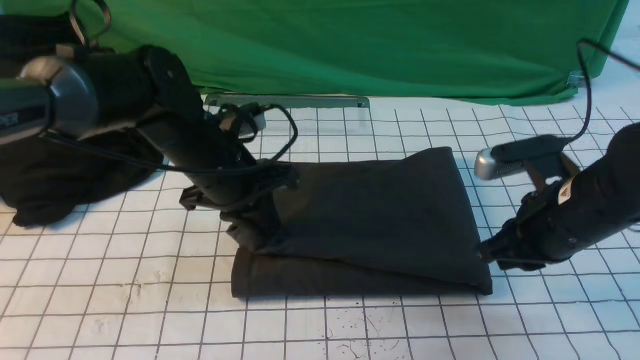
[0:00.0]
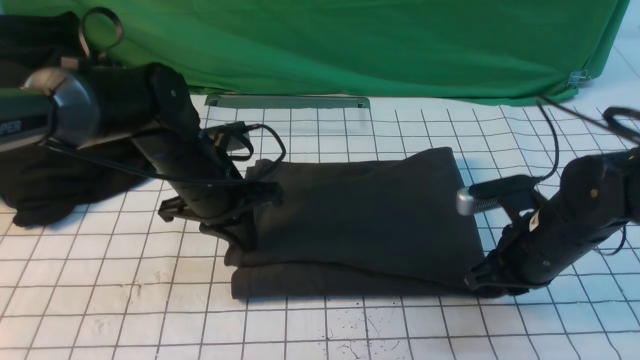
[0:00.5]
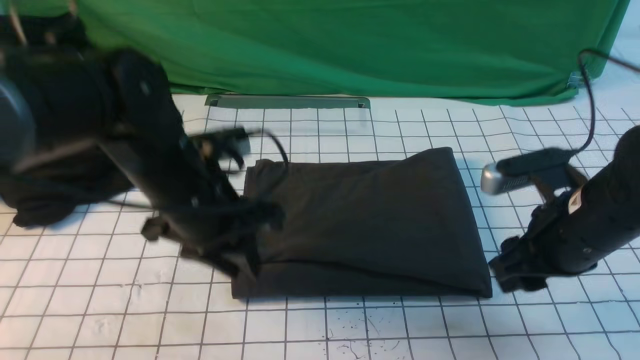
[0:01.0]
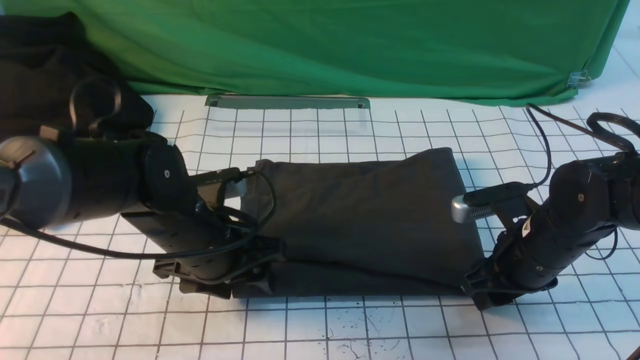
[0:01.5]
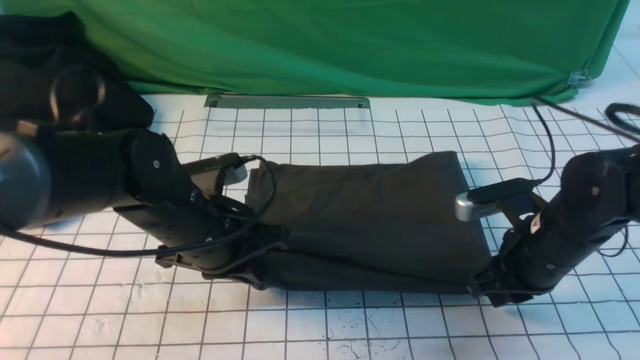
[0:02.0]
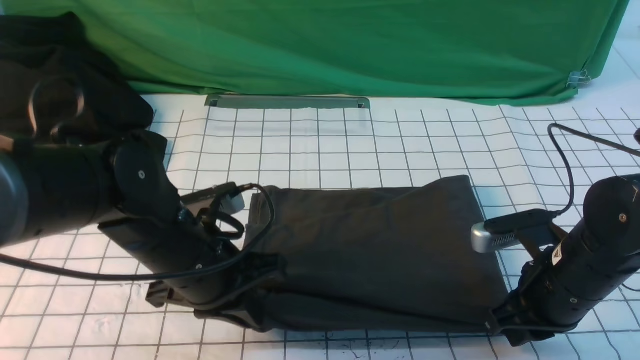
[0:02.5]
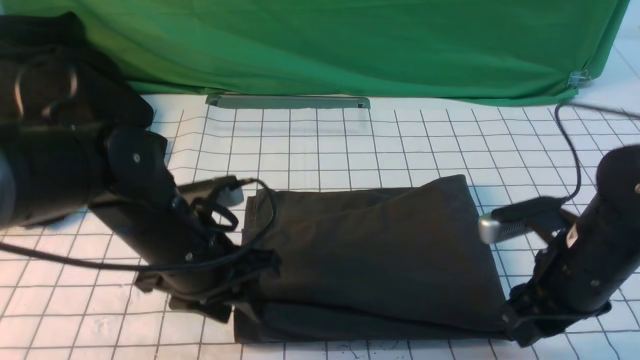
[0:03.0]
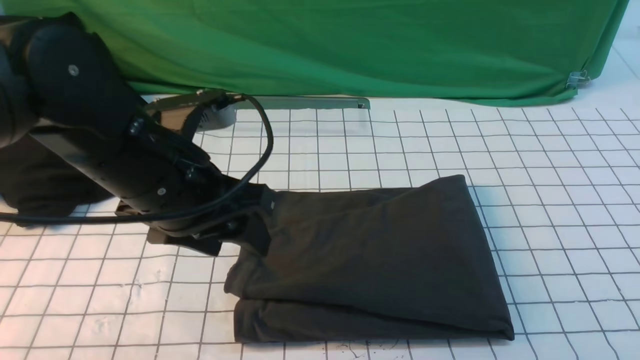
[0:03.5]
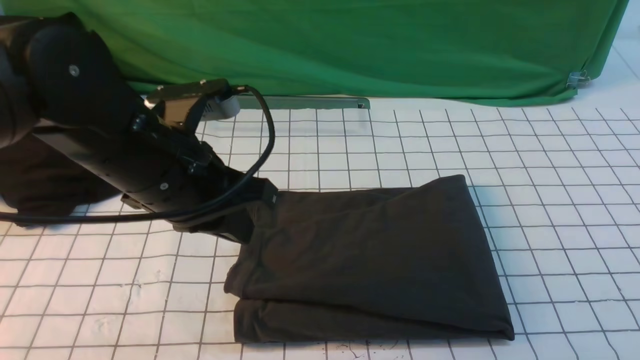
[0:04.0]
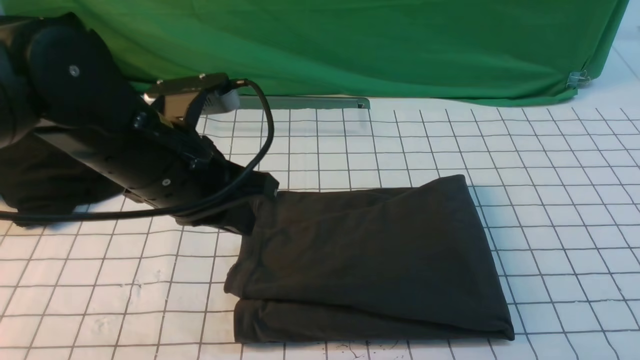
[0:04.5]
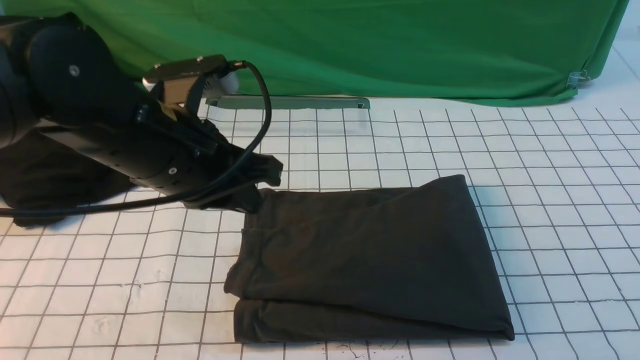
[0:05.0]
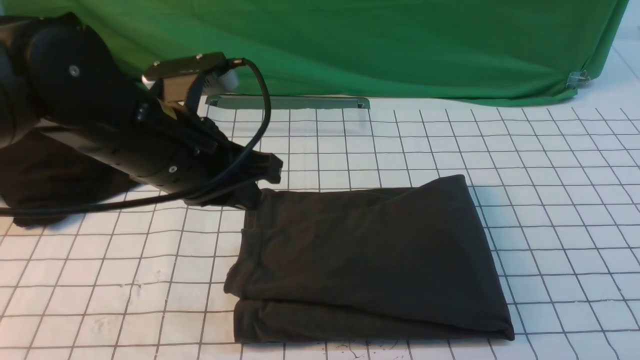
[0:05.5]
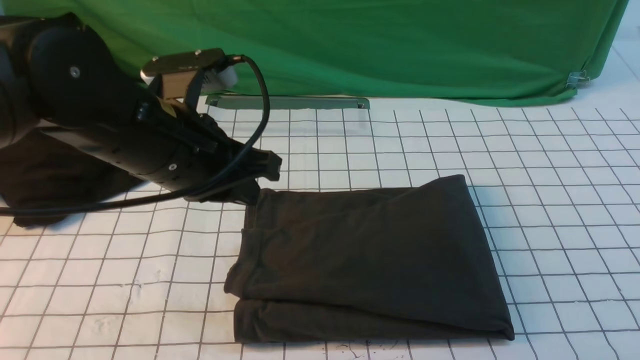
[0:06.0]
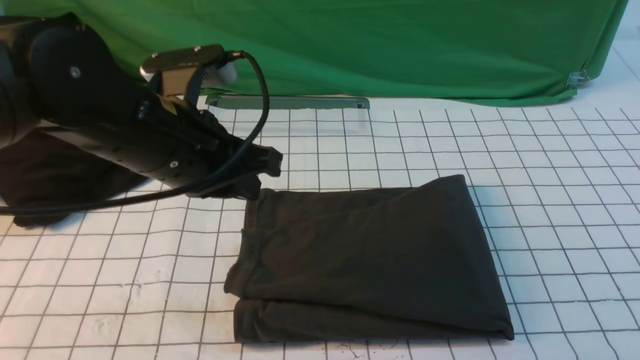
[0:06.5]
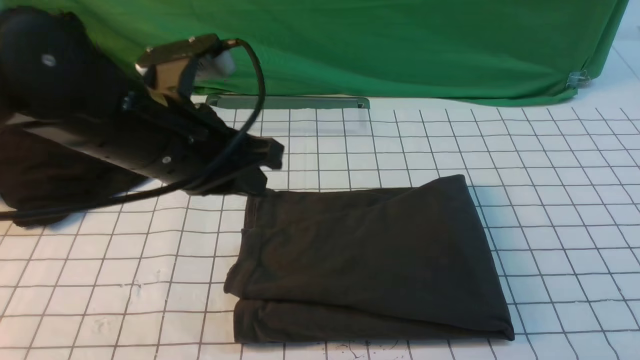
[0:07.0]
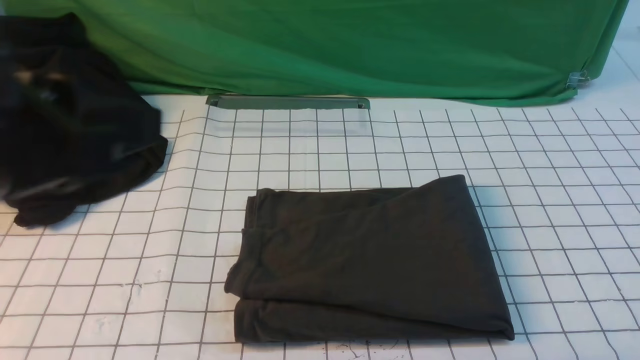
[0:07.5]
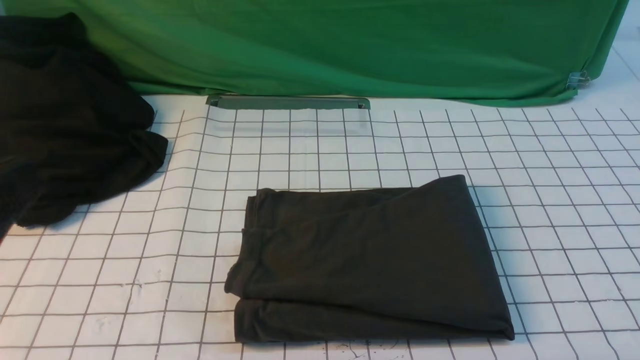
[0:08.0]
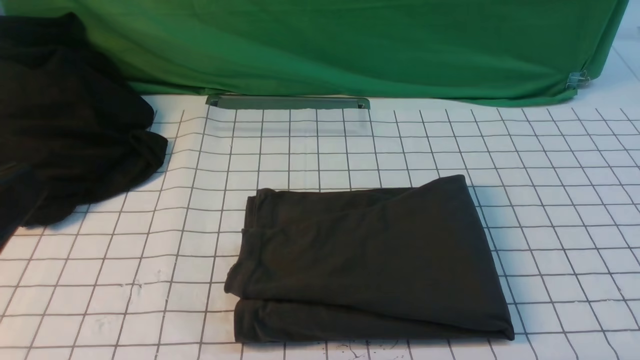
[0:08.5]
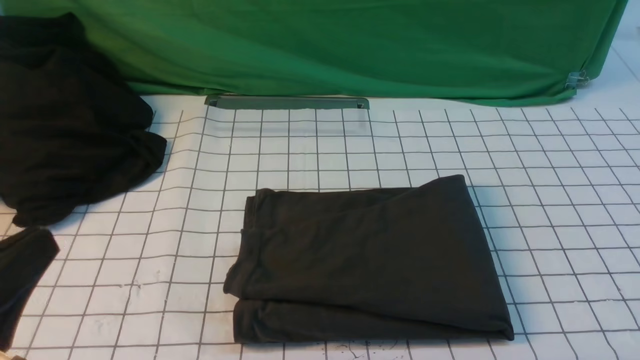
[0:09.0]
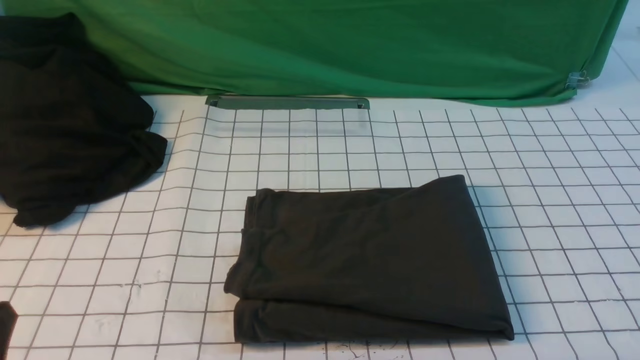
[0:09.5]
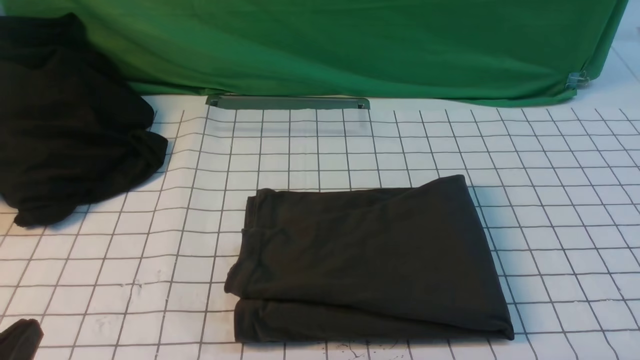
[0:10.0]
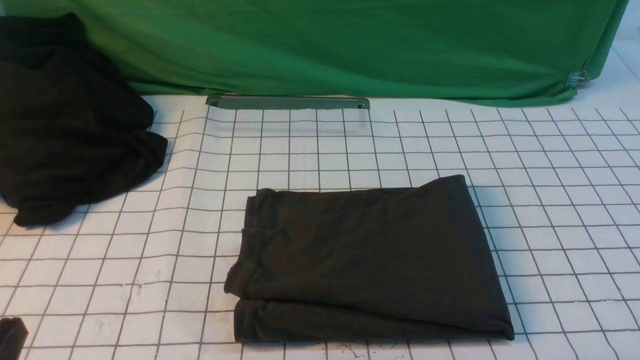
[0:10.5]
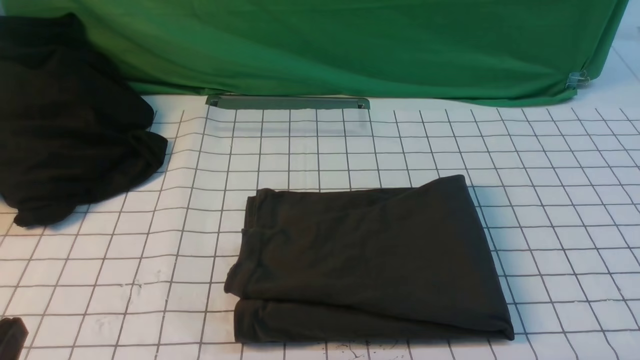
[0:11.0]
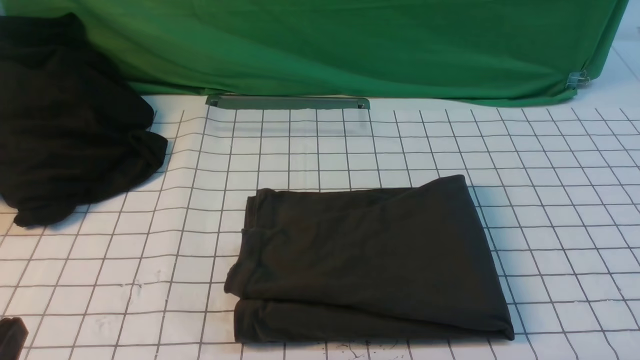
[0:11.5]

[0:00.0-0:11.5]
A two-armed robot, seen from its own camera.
0:00.0 to 0:02.0: The left gripper is displaced backward by about 10 cm, and opens, then closes again. The right gripper opens, then closes again.
0:02.0 to 0:04.0: The right gripper shifts approximately 30 cm backward and upward, and opens, then closes again, while the left gripper is displaced upward by roughly 10 cm, and opens, then closes once more.
0:04.0 to 0:06.0: The right gripper is displaced downward by some 15 cm.
0:06.0 to 0:07.5: The left gripper is displaced backward, upward and to the left by approximately 20 cm.
0:07.5 to 0:09.5: The left gripper shifts some 20 cm downward and backward.

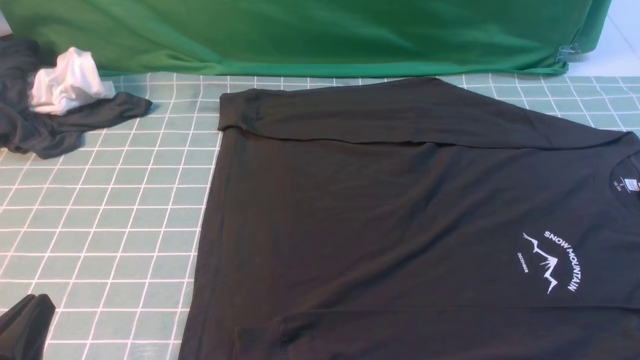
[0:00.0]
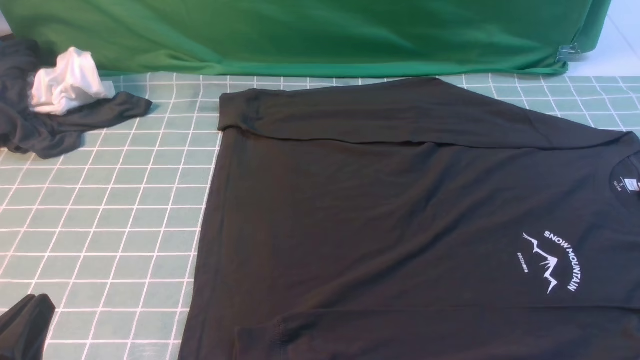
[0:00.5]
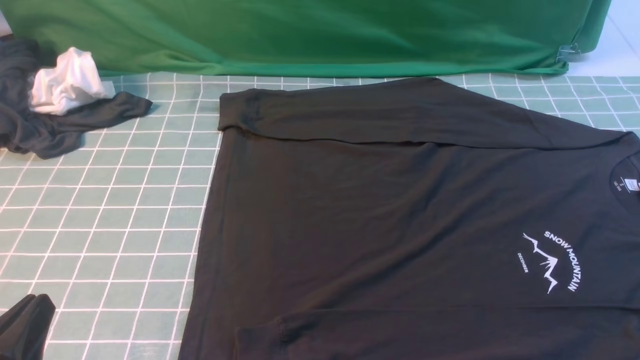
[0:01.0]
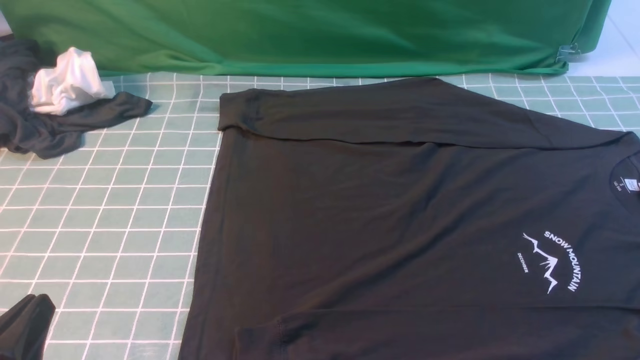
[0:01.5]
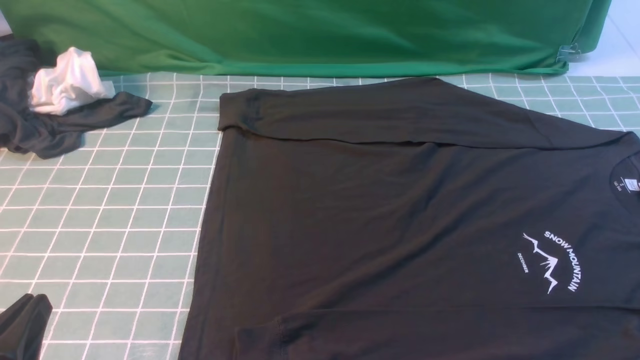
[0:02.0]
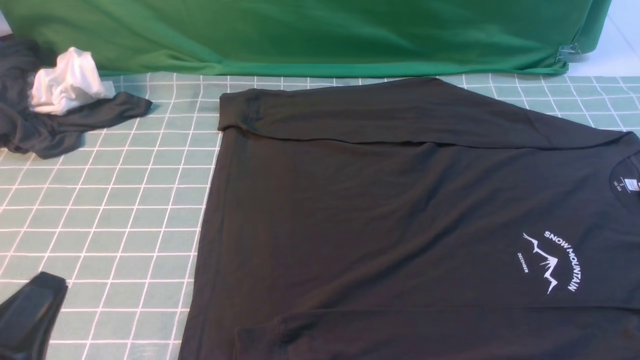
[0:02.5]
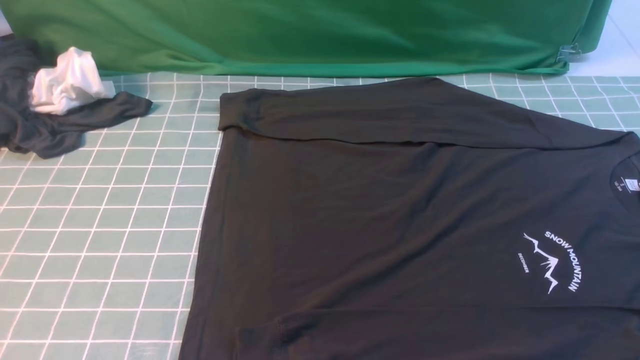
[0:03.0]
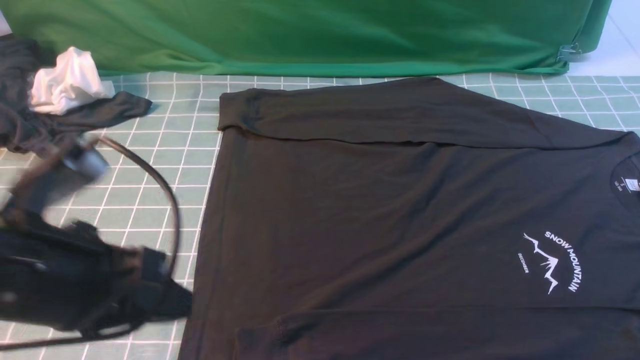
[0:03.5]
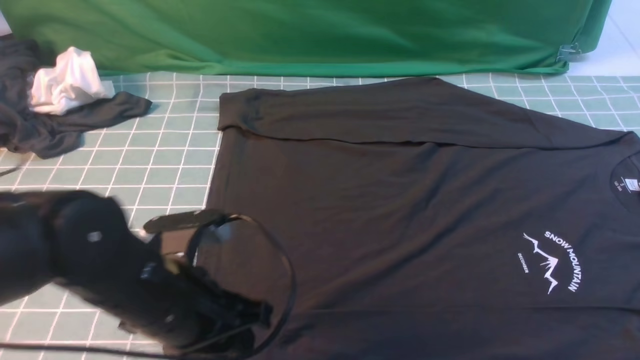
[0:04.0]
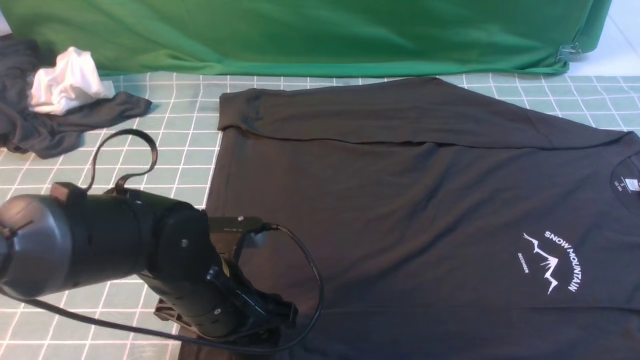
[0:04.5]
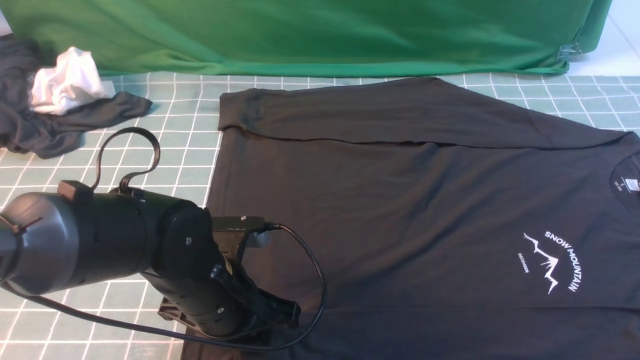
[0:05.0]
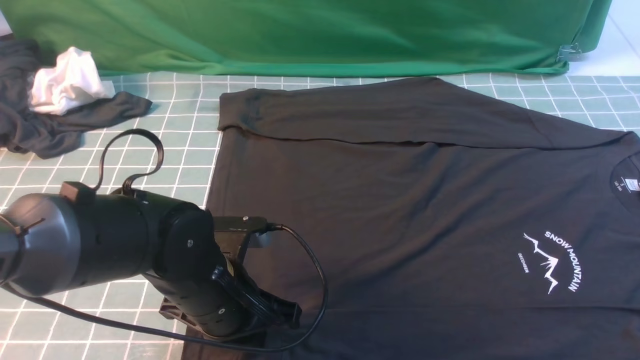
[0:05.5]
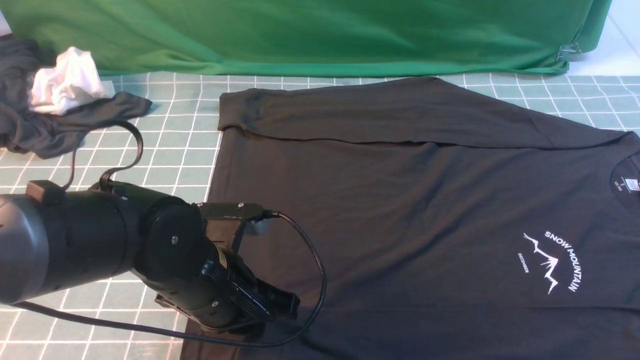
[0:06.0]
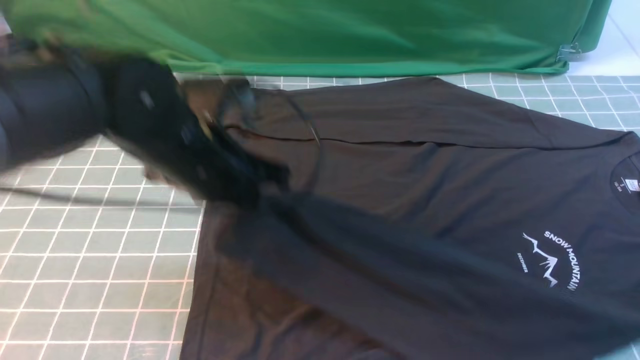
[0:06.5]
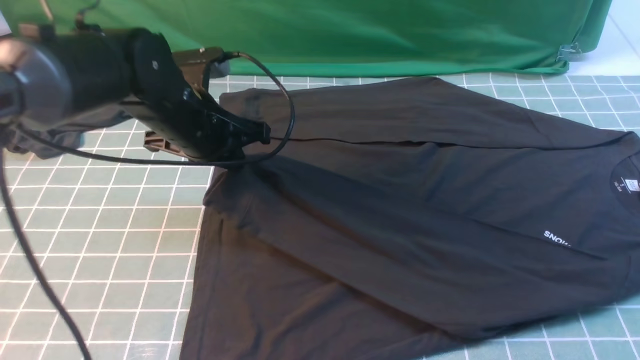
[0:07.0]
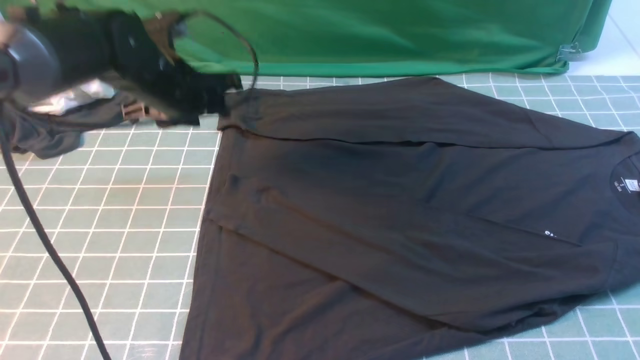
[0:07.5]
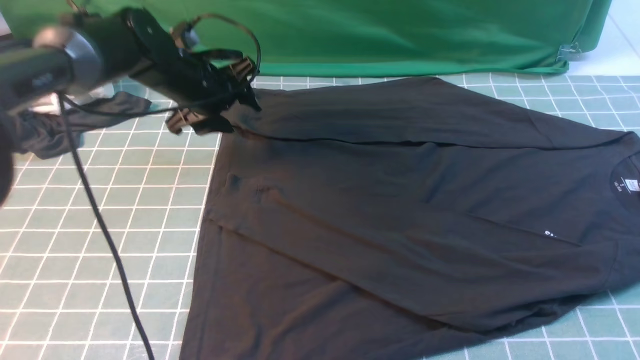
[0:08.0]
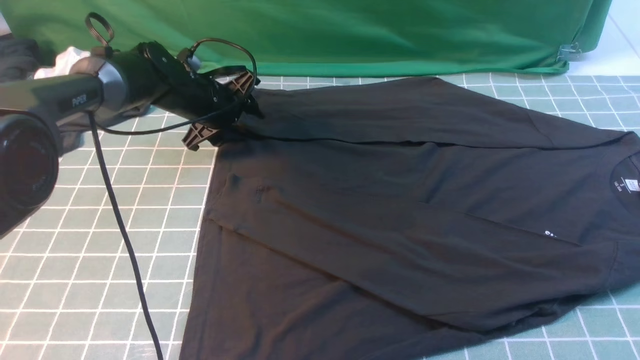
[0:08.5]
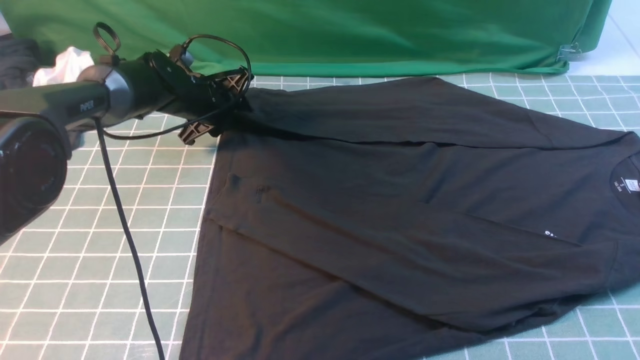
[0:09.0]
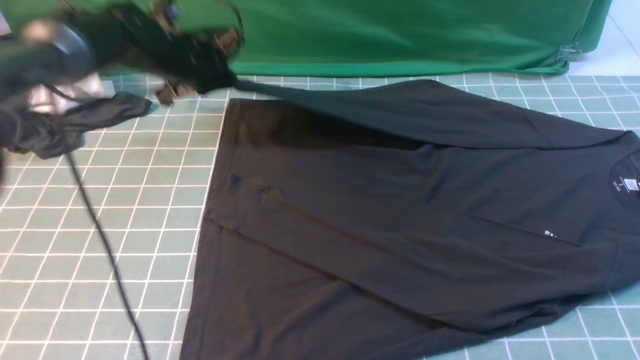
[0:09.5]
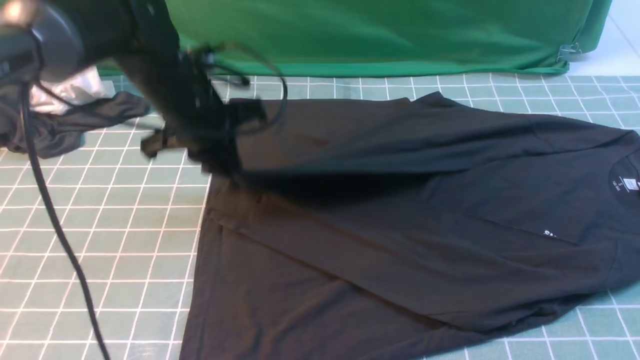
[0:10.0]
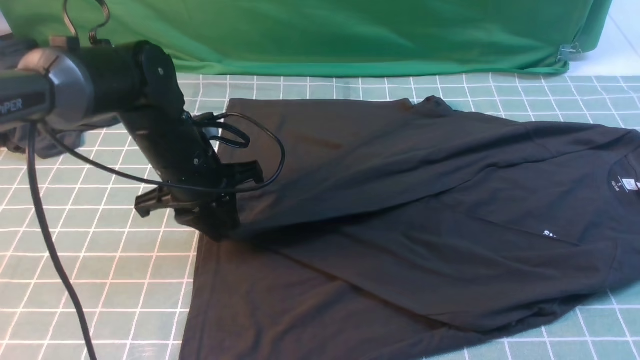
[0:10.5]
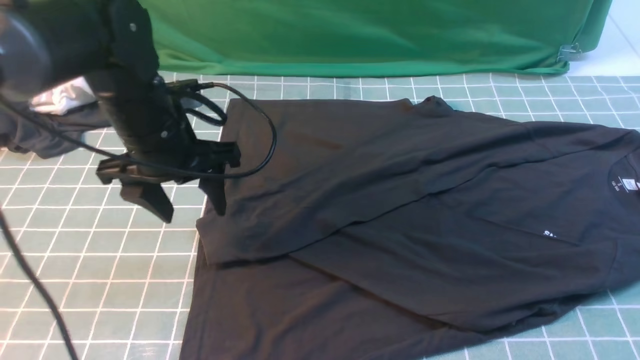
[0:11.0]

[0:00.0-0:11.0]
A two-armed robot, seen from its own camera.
Step, 0:00.0 to 0:05.5: use the left arm to clamp the cuff closest to it.
Step, 0:06.0 to 0:07.5: use the left arm to drag and place the cuff at the centered position on the left edge of the fabric.
Step, 0:08.0 to 0:09.0: use the left arm to clamp the cuff farthest from it.
0:02.0 to 0:03.5: The left gripper shifts roughly 15 cm forward, upward and to the right.
0:03.5 to 0:05.5: The left gripper is displaced downward, to the right and forward by some 15 cm, and opens and closes again.
0:05.5 to 0:07.5: The left gripper shifts roughly 20 cm forward and to the left, and opens its fingers.
0:07.5 to 0:09.0: The left gripper heads downward and forward, covering about 15 cm.
0:09.0 to 0:11.0: The left gripper travels backward and upward by approximately 20 cm, and opens its fingers.
